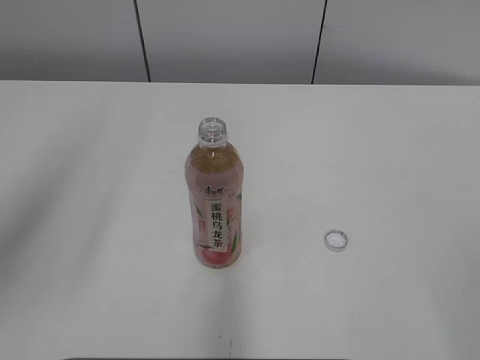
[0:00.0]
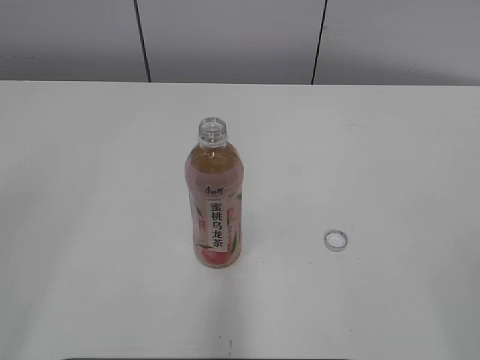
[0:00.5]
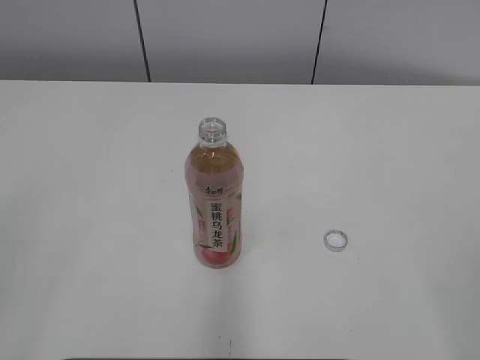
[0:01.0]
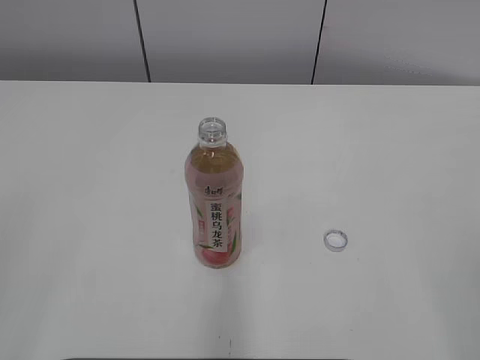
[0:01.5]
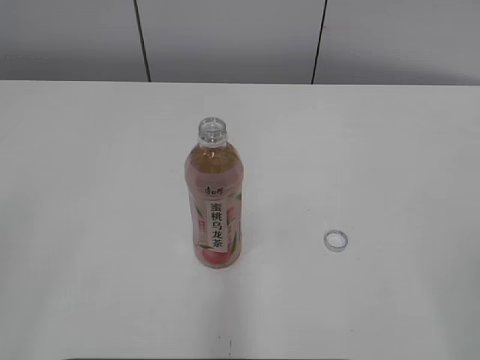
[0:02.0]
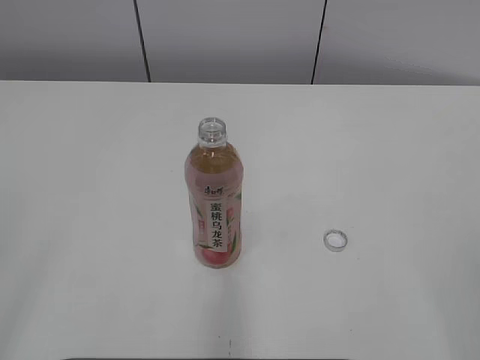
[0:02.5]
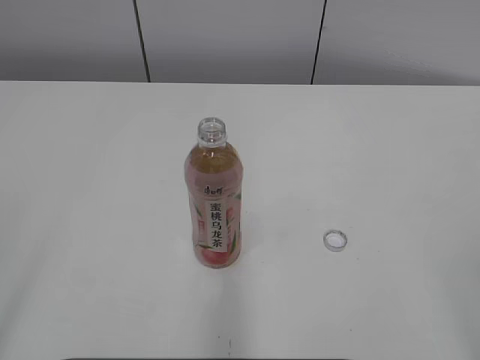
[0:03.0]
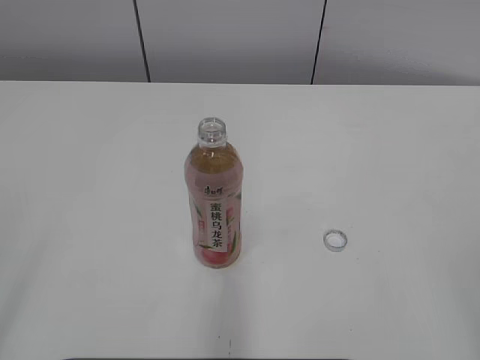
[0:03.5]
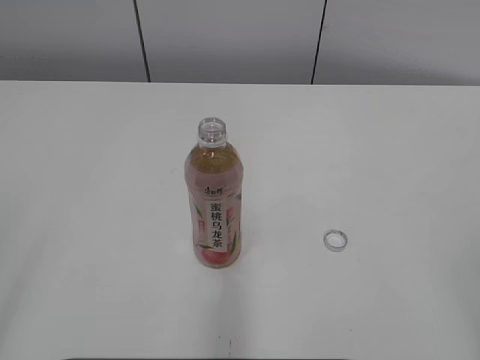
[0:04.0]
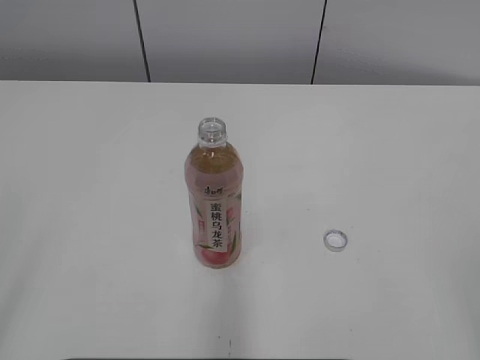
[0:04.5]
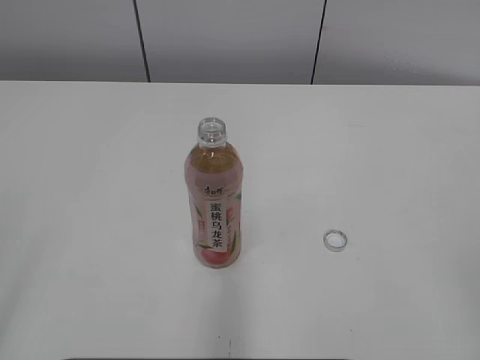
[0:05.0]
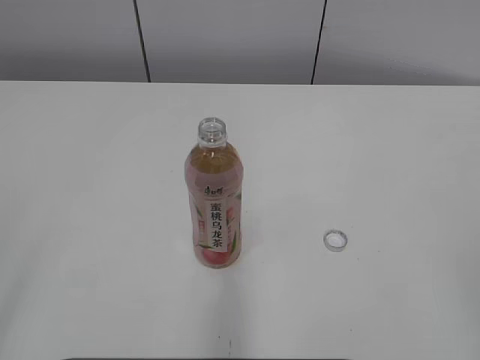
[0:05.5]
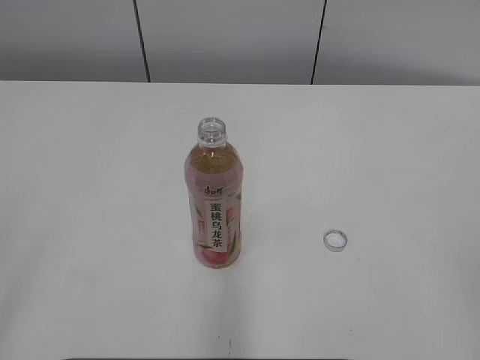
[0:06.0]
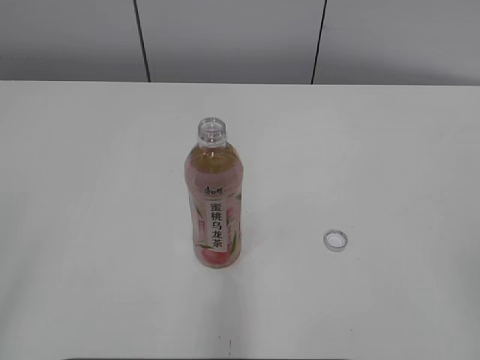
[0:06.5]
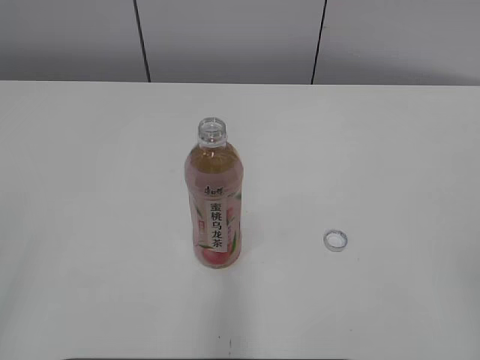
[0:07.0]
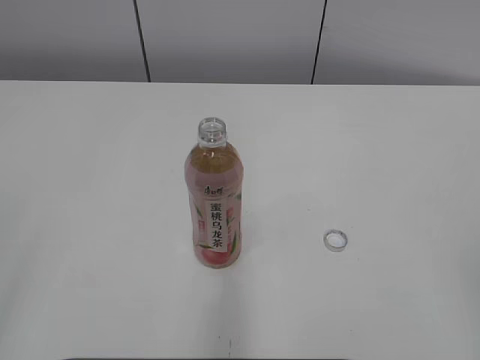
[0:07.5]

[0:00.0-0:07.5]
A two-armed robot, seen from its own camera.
0:00.0 to 0:02.0: The left gripper is displaced backward and downward by some 15 cm.
0:04.0 to 0:05.5: Both grippers stay about where they are.

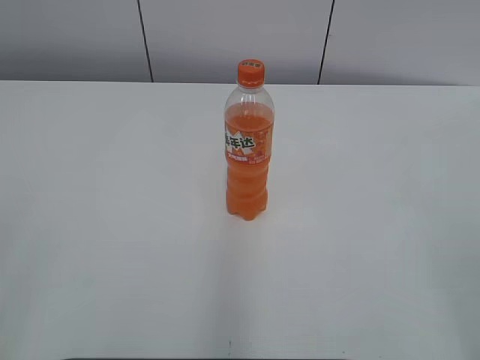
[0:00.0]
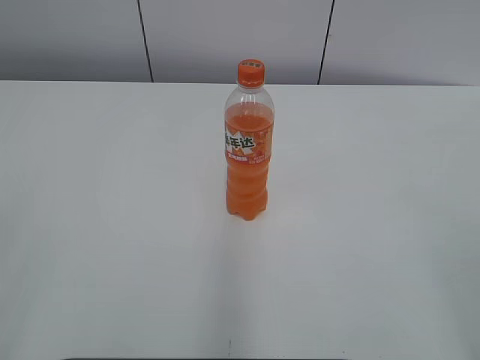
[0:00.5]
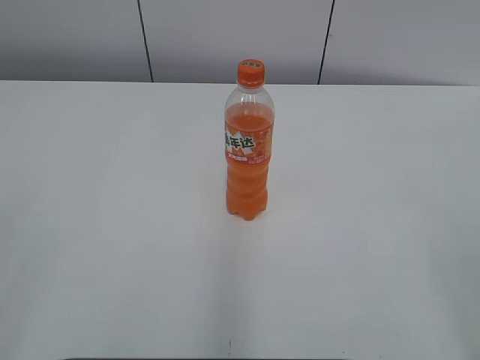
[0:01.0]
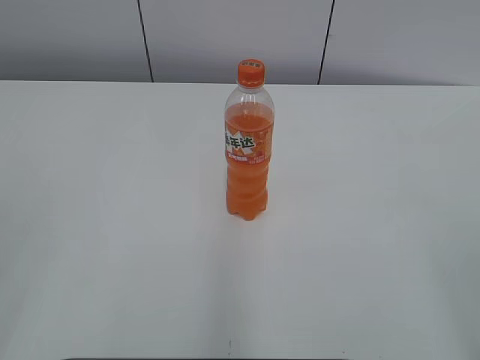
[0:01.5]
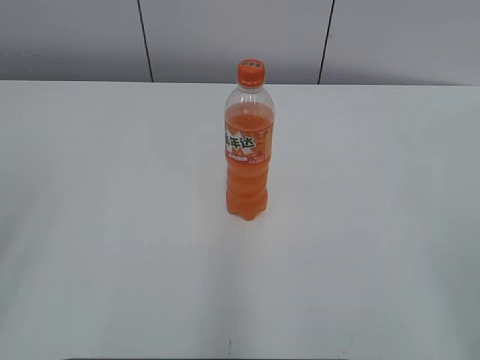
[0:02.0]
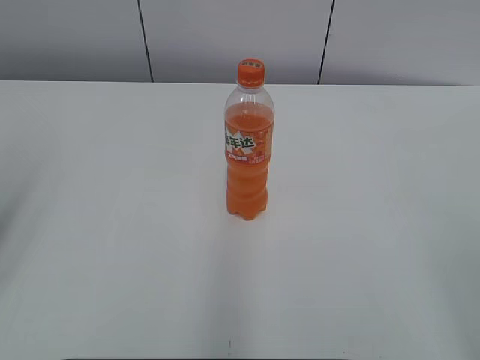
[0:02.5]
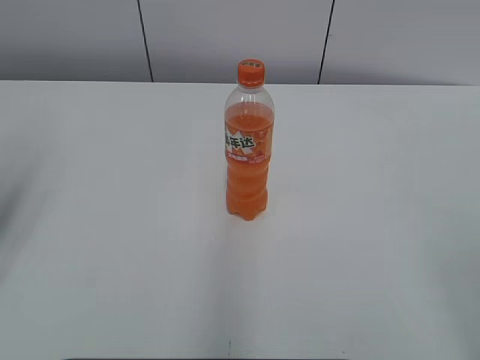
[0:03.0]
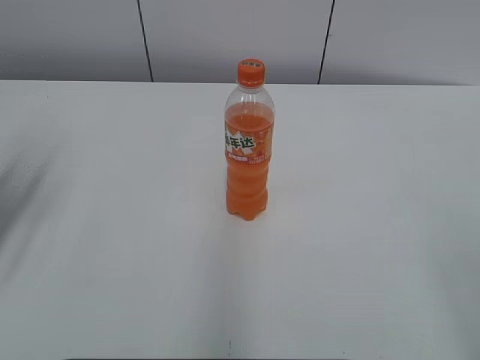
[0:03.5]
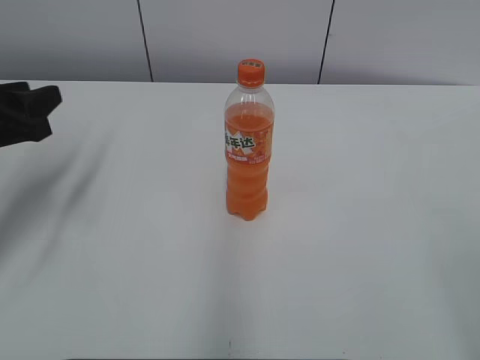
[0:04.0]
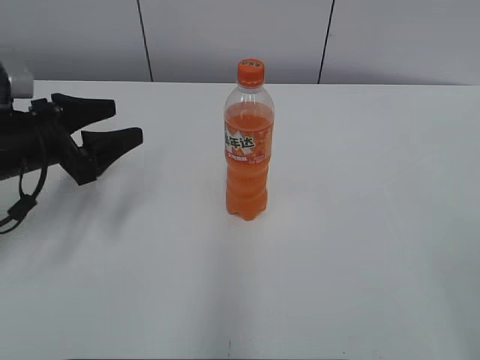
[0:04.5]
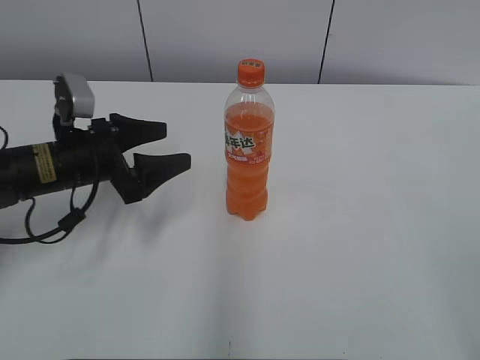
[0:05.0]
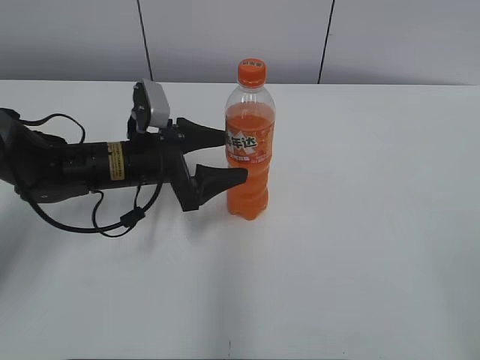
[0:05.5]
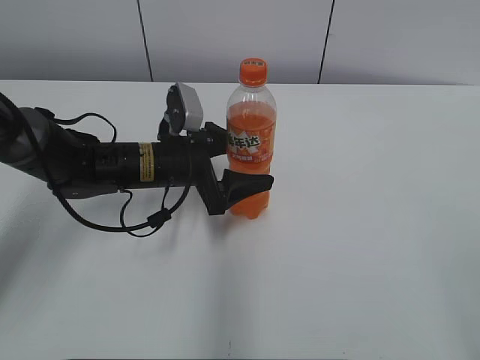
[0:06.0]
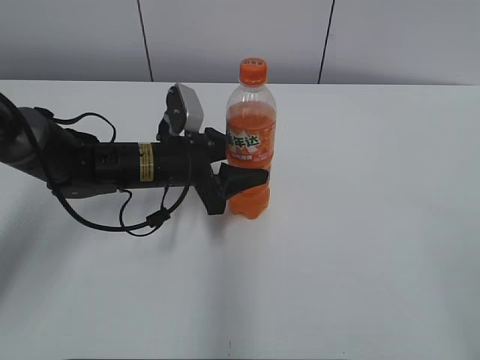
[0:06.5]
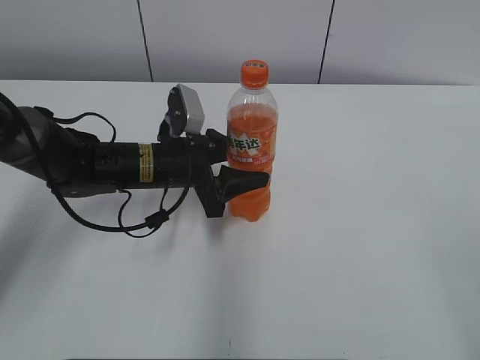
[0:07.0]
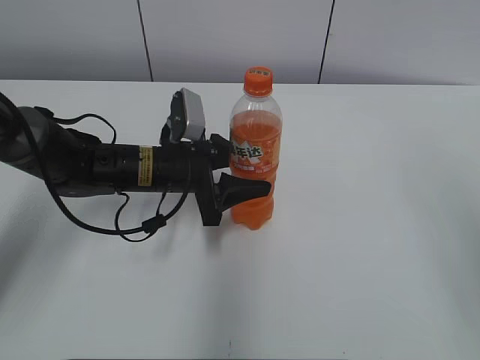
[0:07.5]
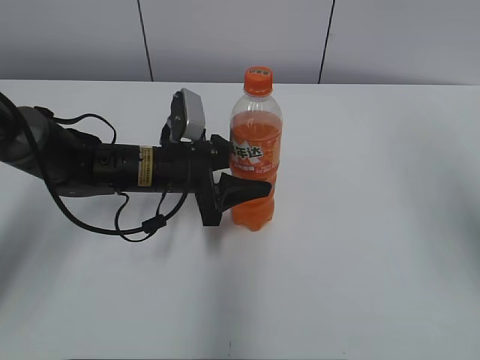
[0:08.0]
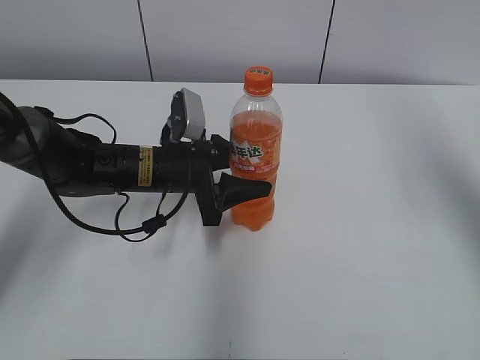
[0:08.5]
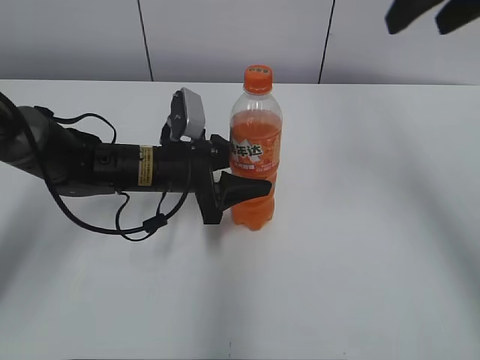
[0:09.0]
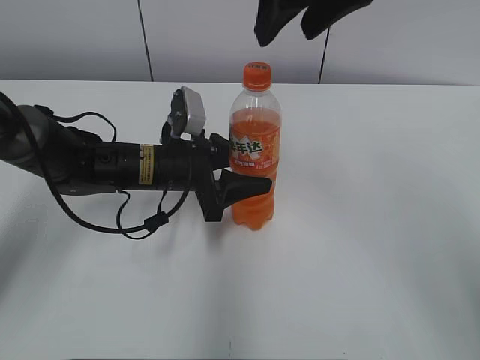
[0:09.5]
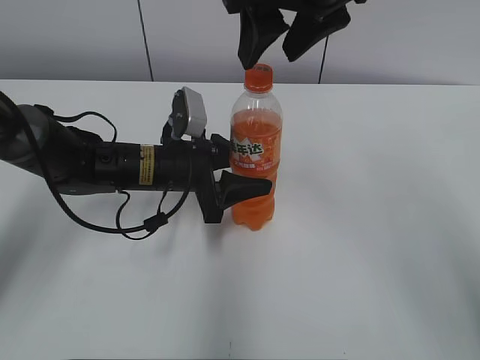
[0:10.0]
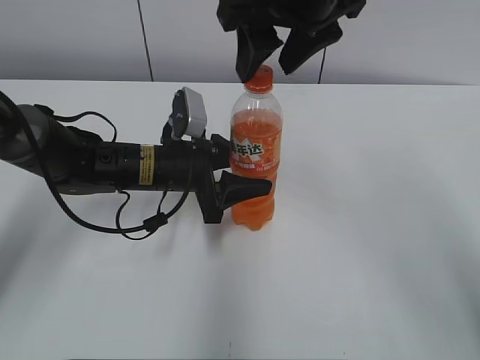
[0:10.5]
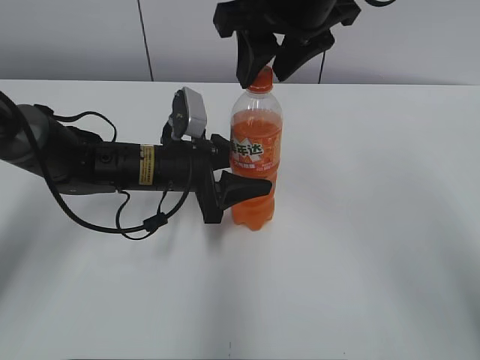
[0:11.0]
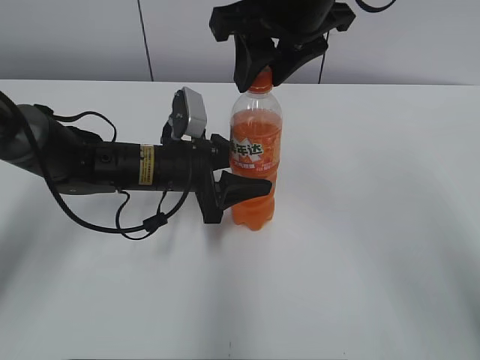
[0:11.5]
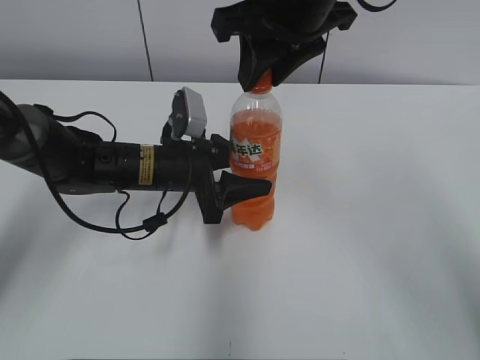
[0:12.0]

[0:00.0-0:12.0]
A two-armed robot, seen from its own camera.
Step, 0:00.0 to 0:06.5: Grab the Mirinda with the left hand.
Step, 0:07.0 to 0:08.0: Move the Mirinda from left to right.
0:02.0 to 0:04.0: The left gripper is displaced forward and downward by roughly 25 cm.
0:04.0 to 0:06.0: The left gripper is displaced to the right and downward by approximately 20 cm, and opens up.
0:06.0 to 0:08.0: The right gripper travels forward by about 20 cm. Meanwhile the left gripper closes up.
0:08.0 to 0:10.0: The right gripper goes about 25 cm to the left and forward.
0:10.0 to 0:12.0: The right gripper closes up.

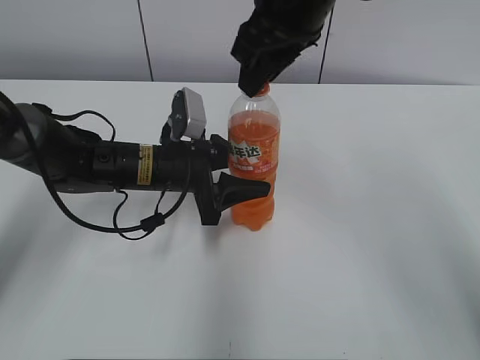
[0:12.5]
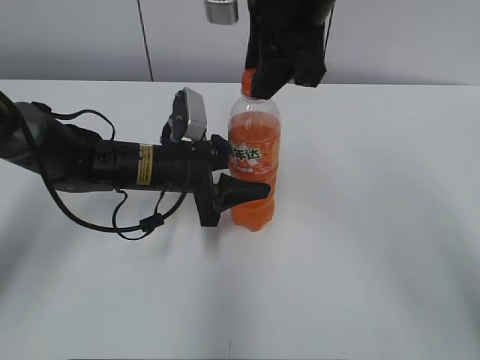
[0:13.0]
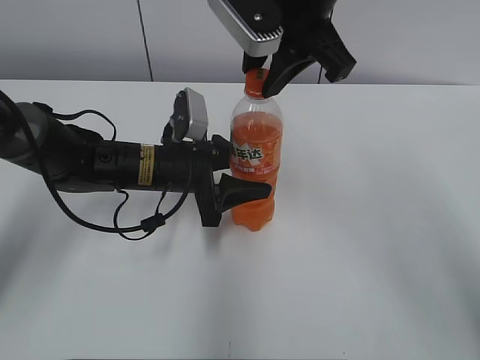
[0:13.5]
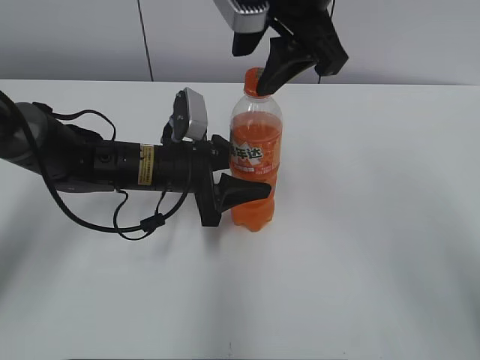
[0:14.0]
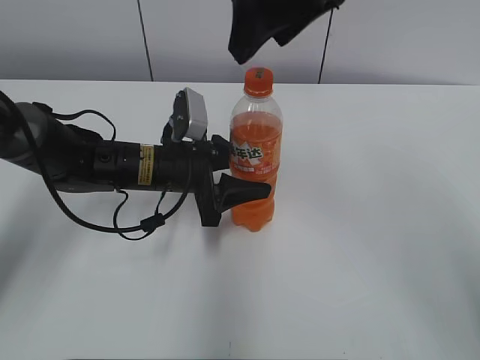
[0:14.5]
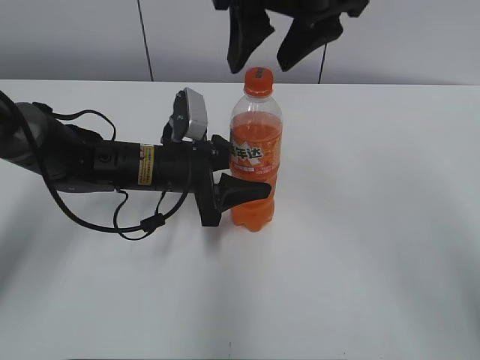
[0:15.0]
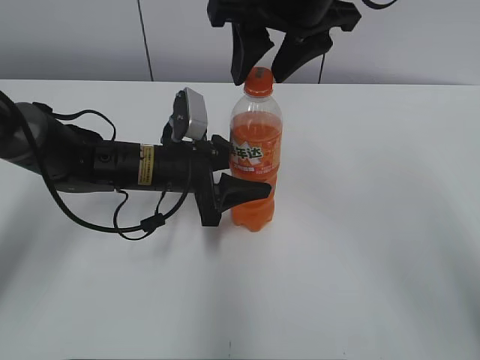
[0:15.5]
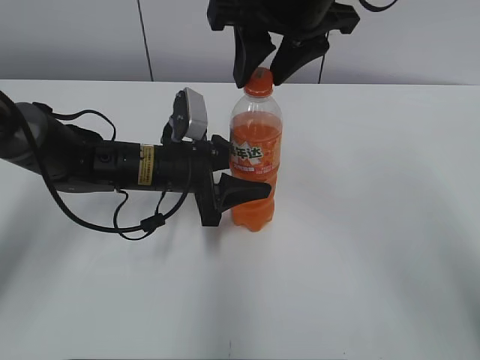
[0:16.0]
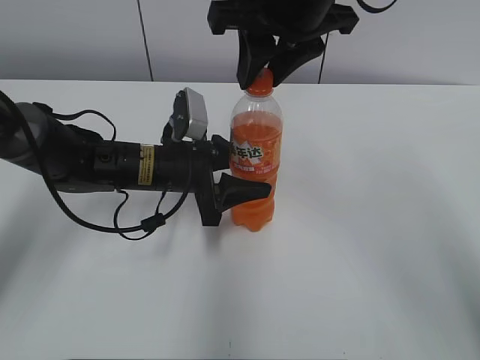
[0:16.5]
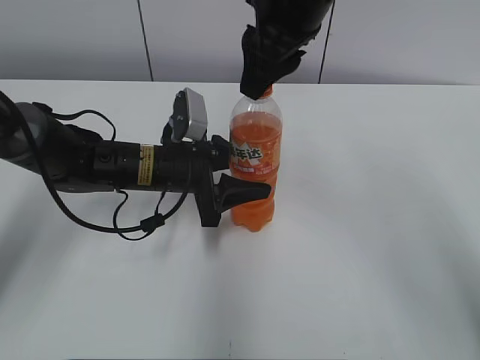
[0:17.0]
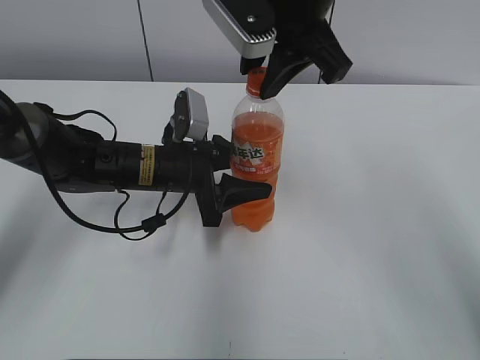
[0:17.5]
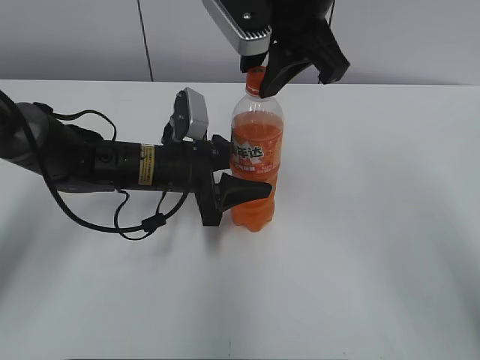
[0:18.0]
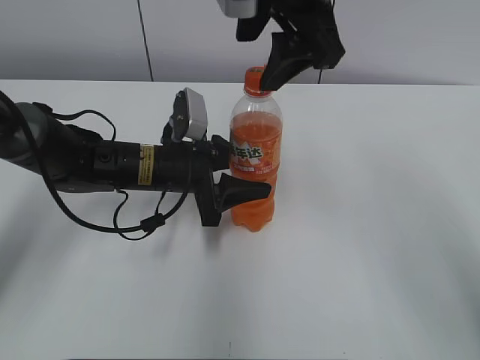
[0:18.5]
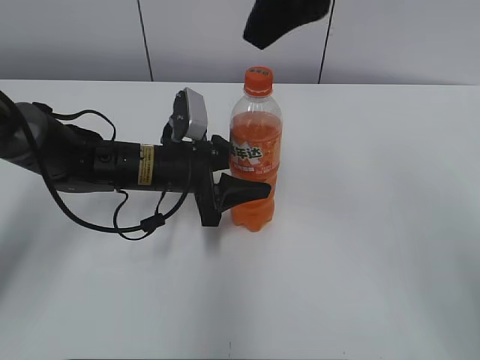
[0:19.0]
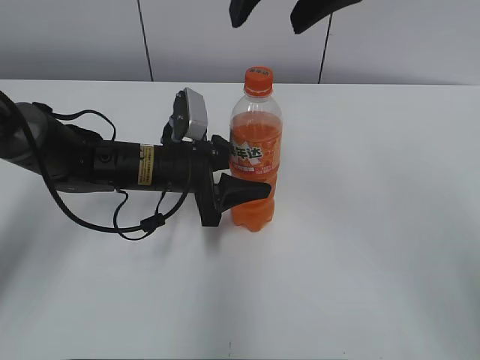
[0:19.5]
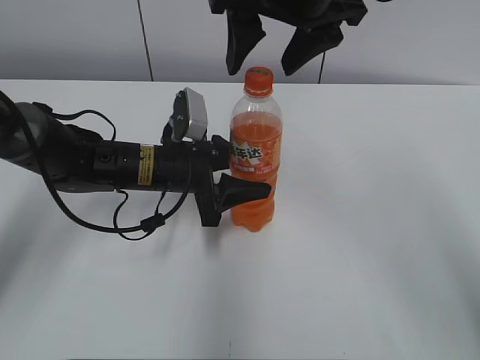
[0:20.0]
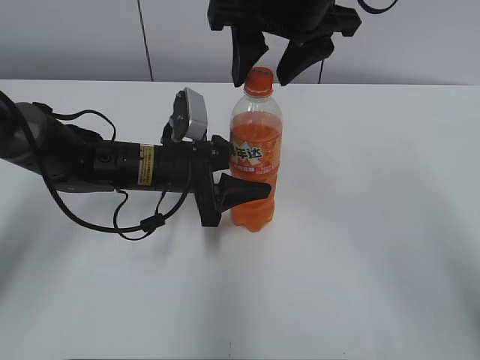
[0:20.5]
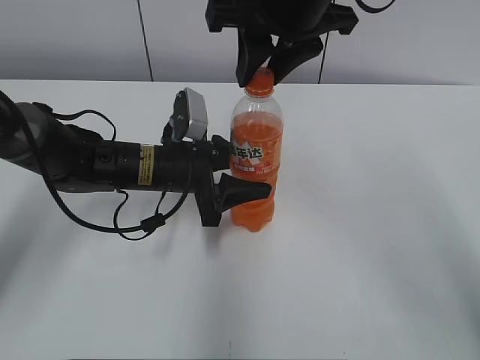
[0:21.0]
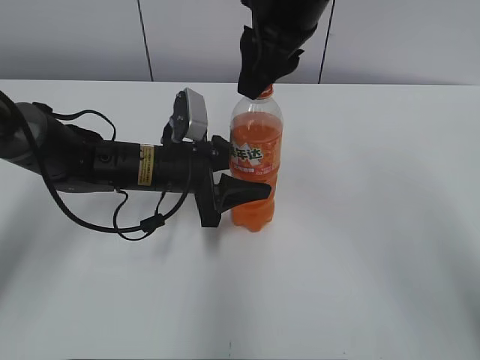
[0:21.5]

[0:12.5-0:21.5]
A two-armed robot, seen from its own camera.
0:12.5 to 0:14.5: The right gripper opens.
0:14.5 to 0:17.0: The right gripper closes its fingers.
0:17.0 to 0:19.5: The right gripper shifts some 5 cm upward, and opens.
0:19.5 to 0:21.5: The right gripper shifts some 5 cm downward, and closes.
